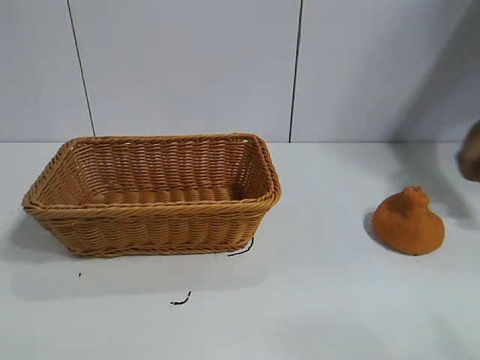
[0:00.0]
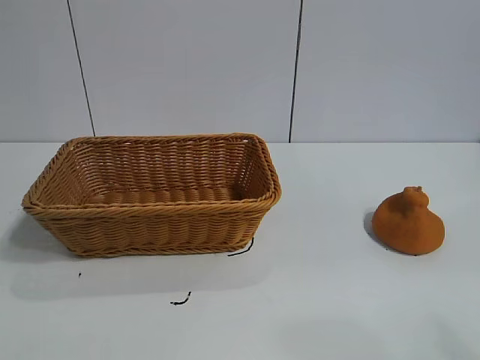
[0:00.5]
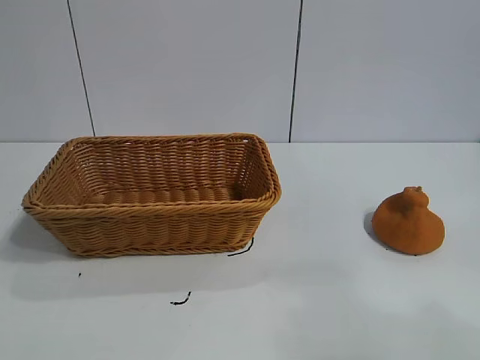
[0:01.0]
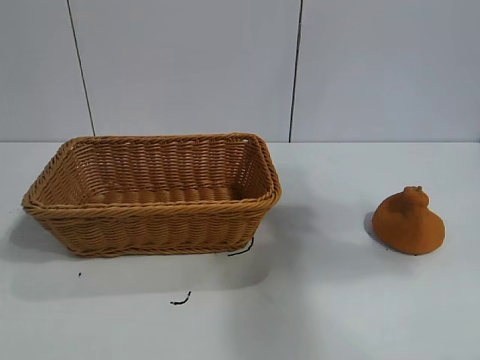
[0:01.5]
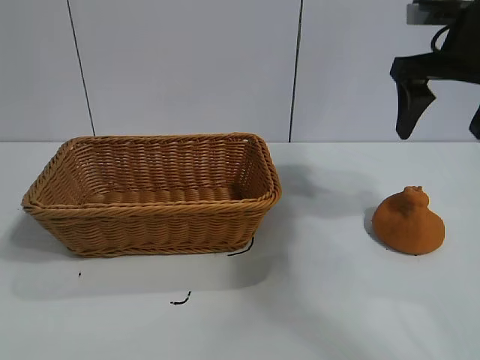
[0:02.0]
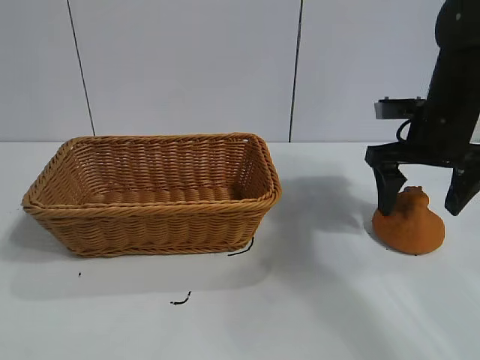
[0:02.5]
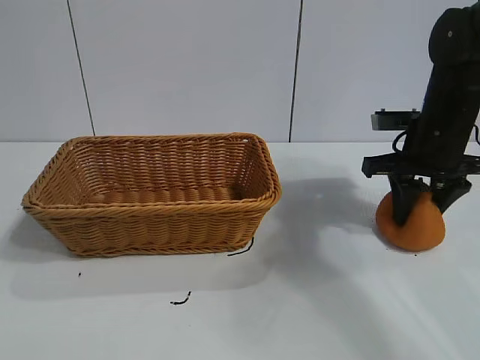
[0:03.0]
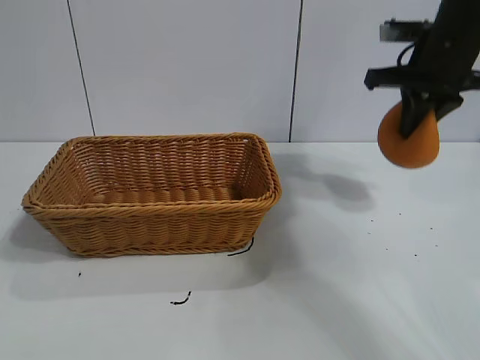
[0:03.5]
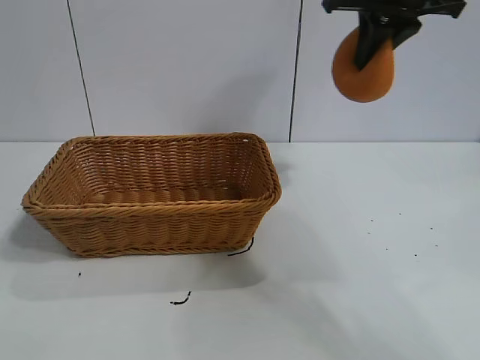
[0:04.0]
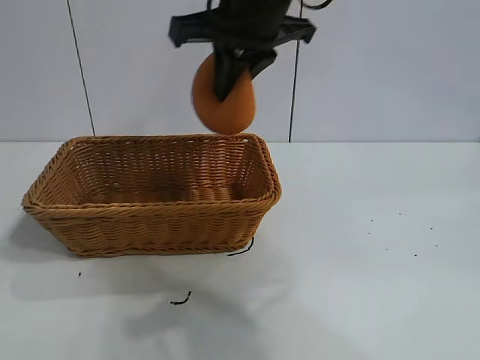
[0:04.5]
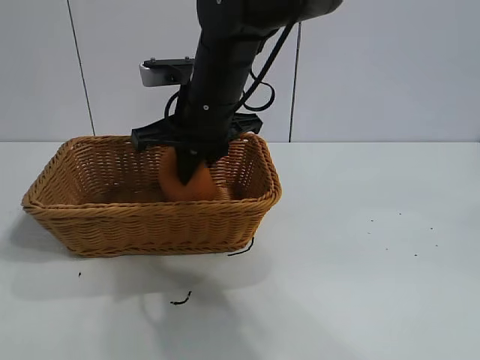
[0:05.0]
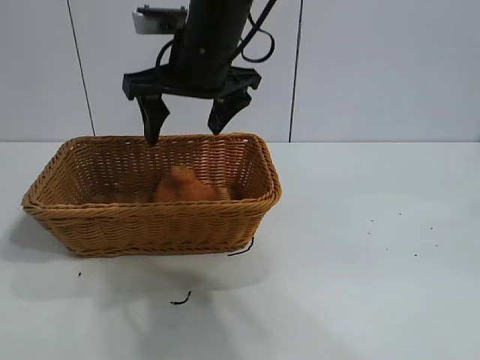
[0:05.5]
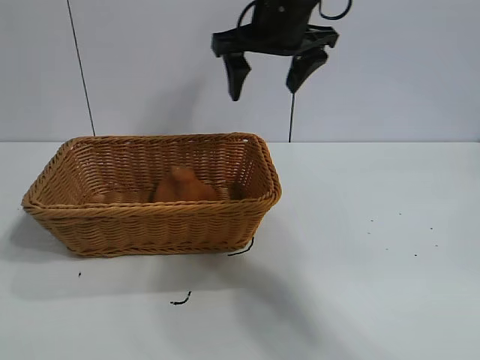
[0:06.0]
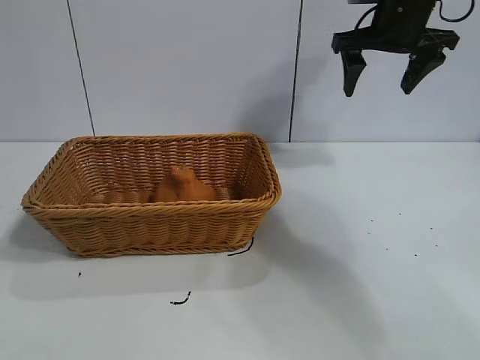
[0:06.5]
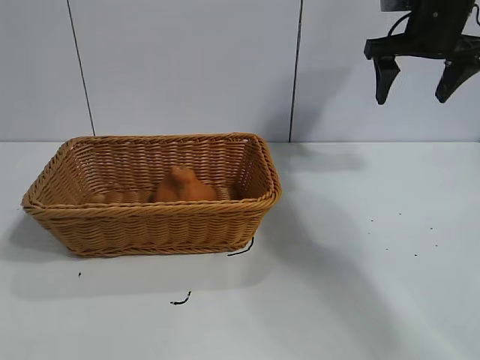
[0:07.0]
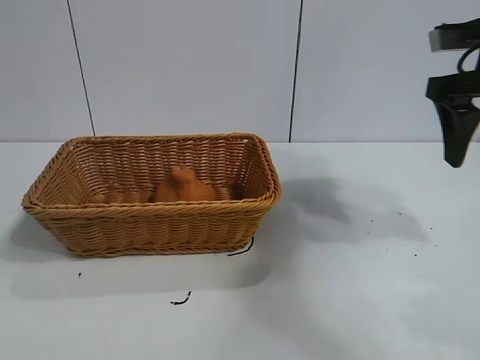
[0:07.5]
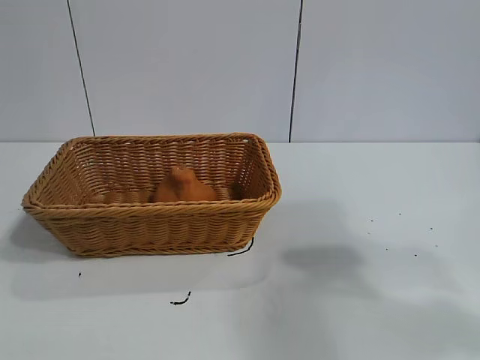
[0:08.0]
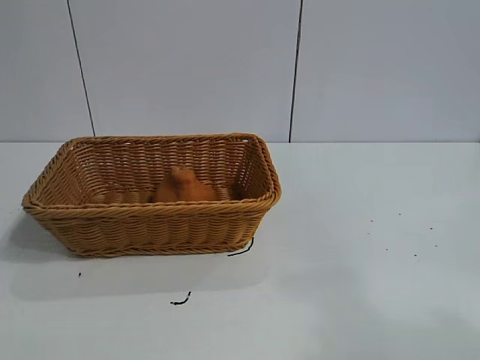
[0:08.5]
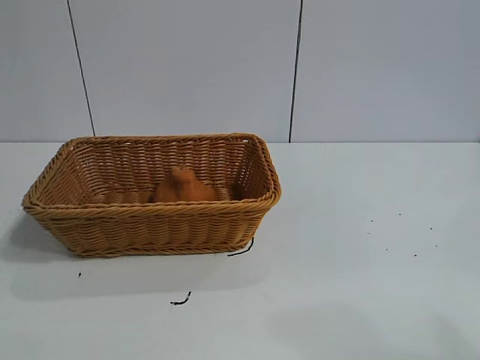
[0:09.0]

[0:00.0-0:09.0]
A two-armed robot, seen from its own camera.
Task of the whole recording: pick up the orange and put it into the basket.
Step, 0:01.0 to 0:03.0: Grasp the orange with right gripper.
Step, 0:03.5 to 0:05.0: Place the orange in the basket with right gripper.
